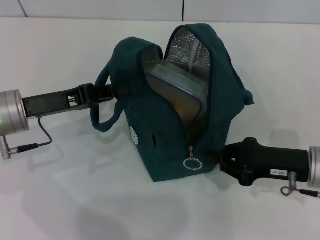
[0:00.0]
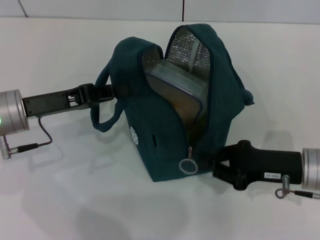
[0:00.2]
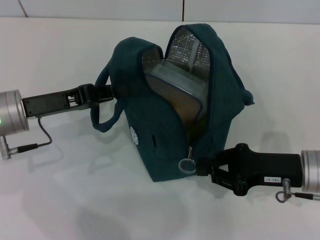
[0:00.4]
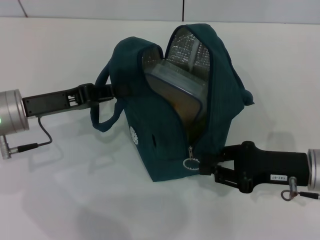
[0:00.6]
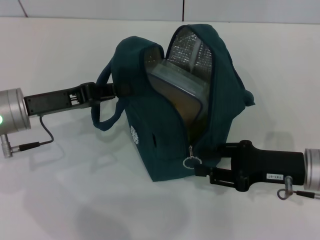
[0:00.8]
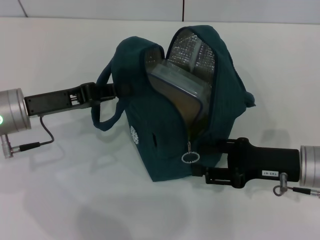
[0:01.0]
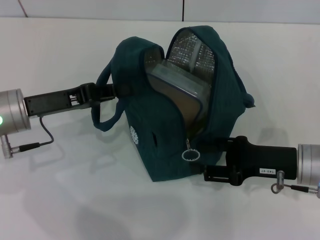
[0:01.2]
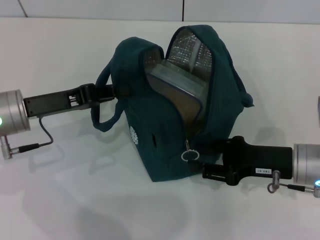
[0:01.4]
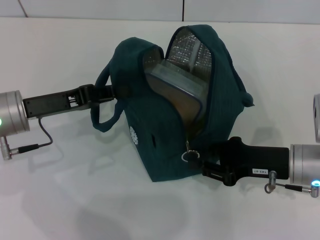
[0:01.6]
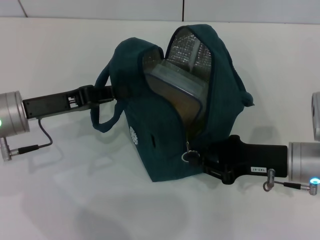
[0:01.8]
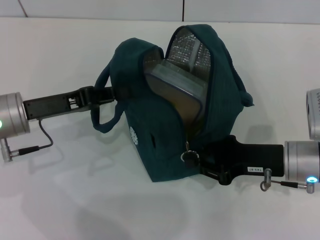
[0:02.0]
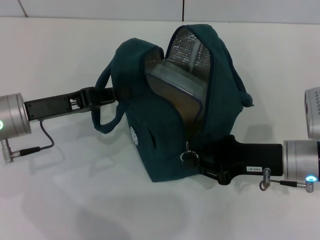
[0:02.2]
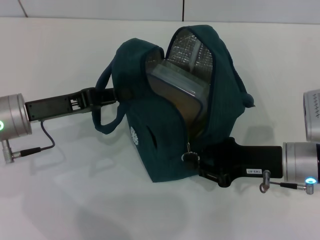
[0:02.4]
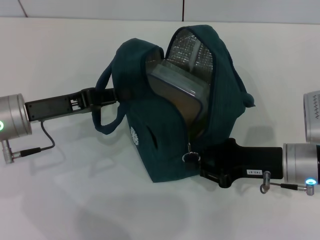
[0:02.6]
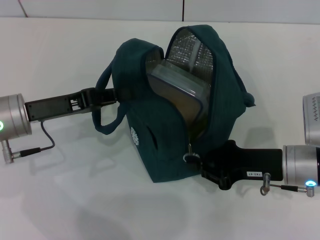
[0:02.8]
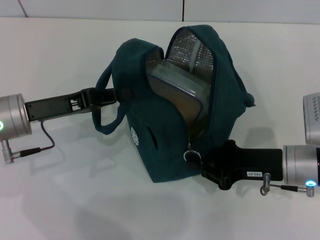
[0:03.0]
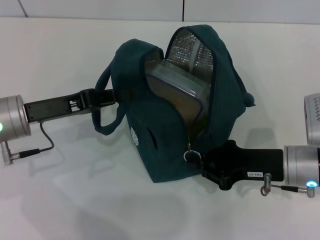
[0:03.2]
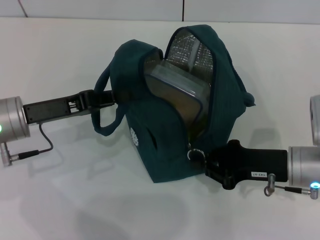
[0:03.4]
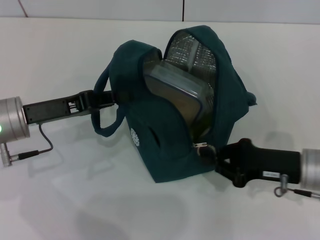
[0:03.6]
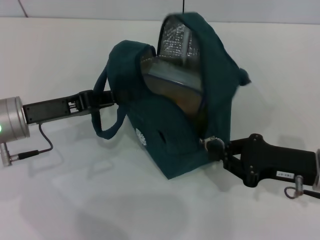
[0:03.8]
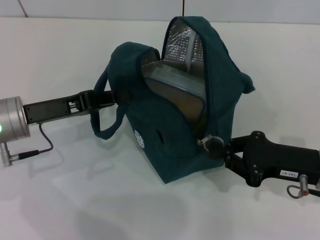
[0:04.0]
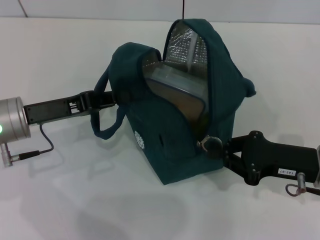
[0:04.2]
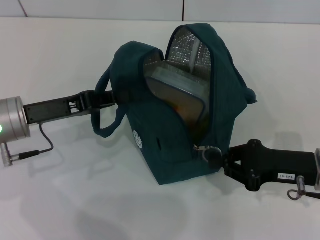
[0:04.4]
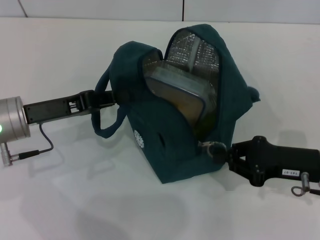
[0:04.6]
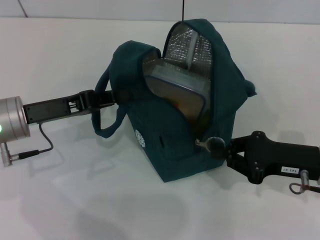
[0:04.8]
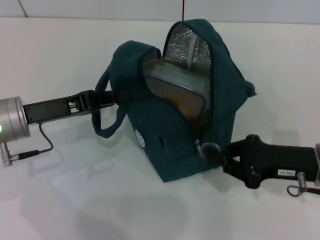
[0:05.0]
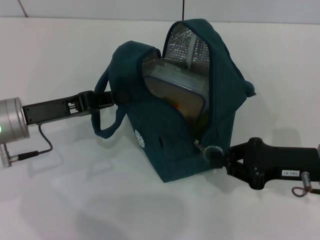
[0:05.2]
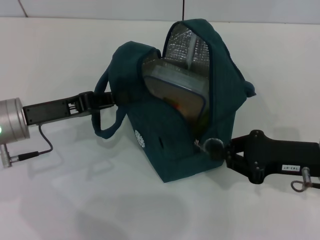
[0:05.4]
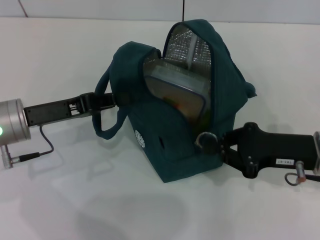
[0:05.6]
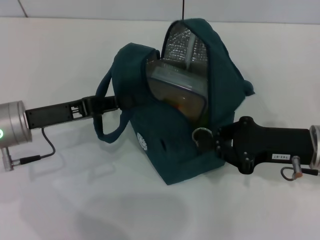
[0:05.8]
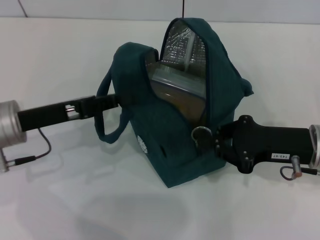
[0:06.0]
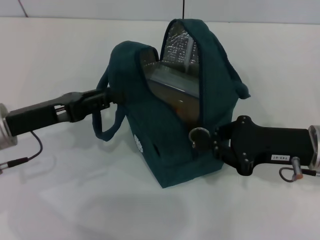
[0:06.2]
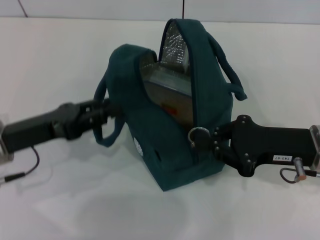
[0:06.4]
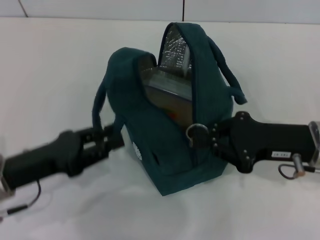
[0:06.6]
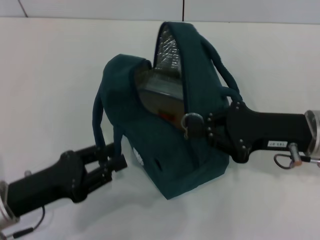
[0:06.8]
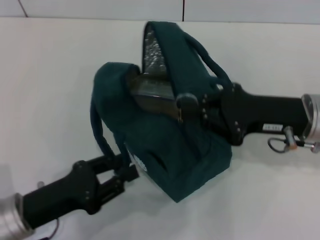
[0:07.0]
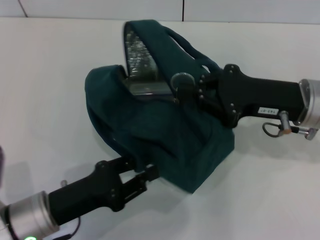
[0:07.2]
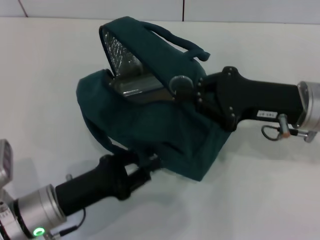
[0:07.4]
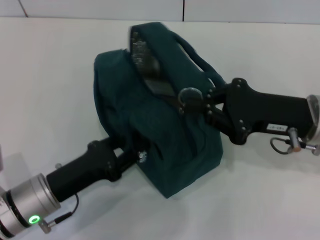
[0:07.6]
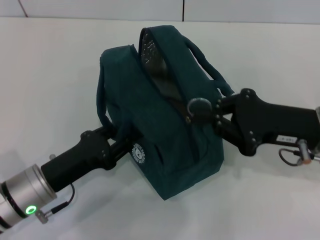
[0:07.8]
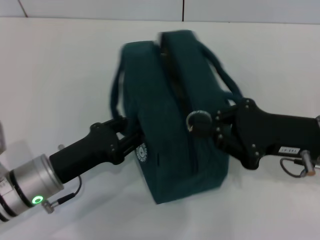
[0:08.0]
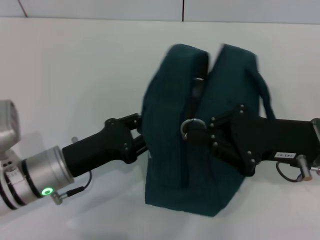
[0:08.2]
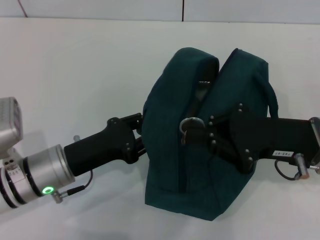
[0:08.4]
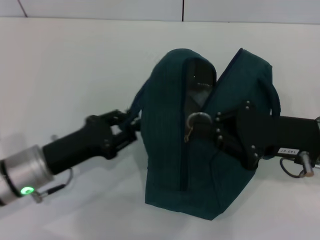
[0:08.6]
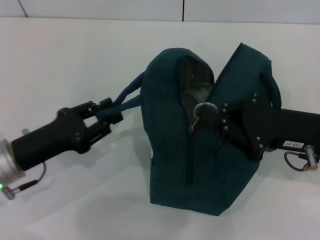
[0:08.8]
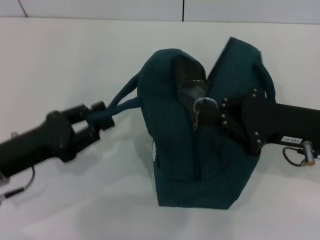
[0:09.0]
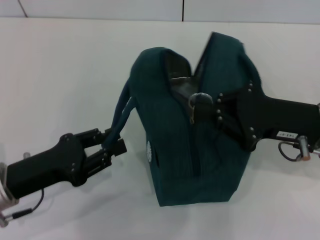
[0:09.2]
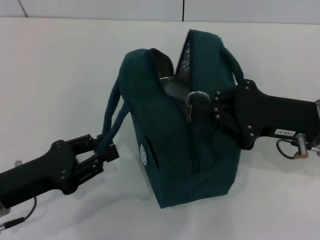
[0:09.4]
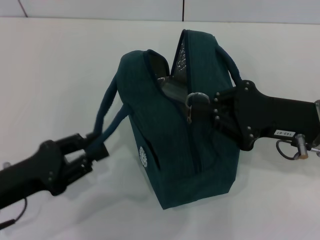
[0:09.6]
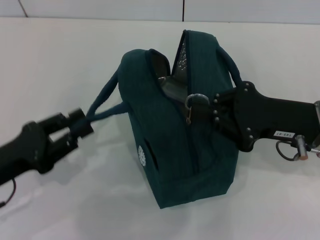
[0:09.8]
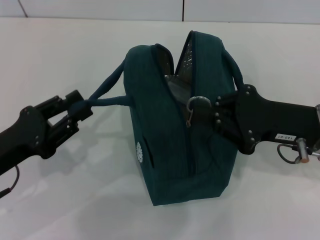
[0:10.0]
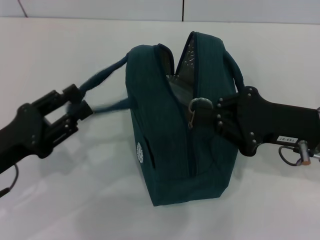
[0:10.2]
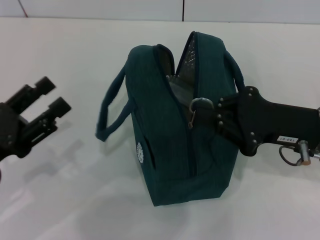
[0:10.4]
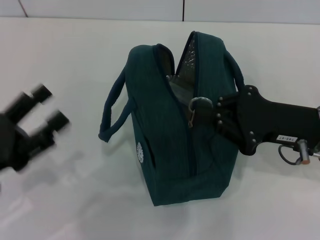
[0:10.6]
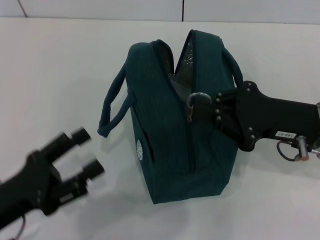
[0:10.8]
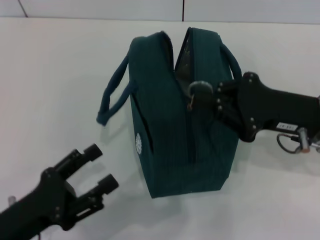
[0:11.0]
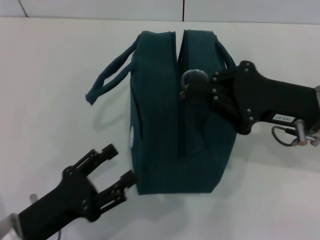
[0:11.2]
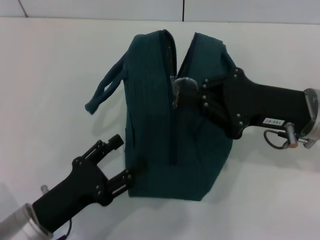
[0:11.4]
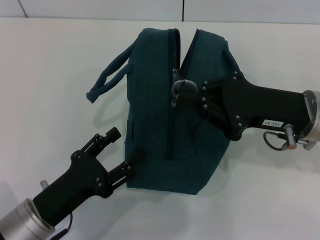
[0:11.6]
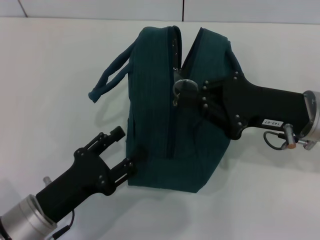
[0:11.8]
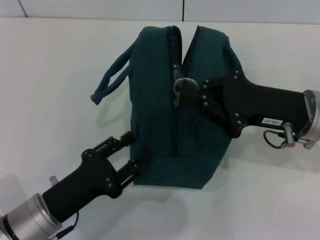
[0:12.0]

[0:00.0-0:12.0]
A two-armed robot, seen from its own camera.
0:00.0 to 0:01.6: The right gripper opens up.
0:01.6 to 0:03.0: The right gripper closes its fingers.
0:03.0 to 0:06.0: The grippers stay close to where they were, moving slightly.
0:06.0 to 0:07.6: The left gripper moves downward and backward, approximately 10 cm.
0:07.6 to 0:09.0: The left gripper travels to the left and upward by approximately 10 cm.
0:10.4 to 0:12.0: The left gripper shifts roughly 10 cm to the right and downward.

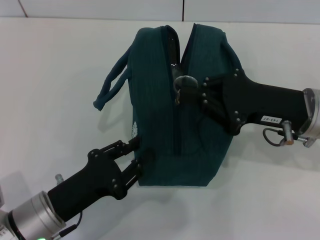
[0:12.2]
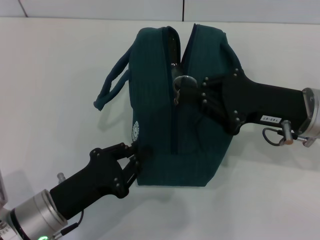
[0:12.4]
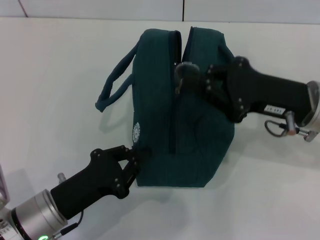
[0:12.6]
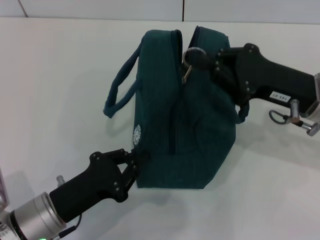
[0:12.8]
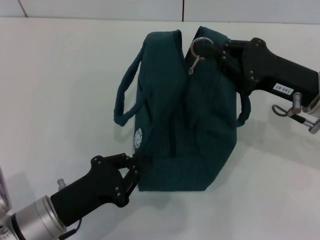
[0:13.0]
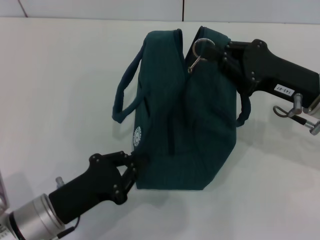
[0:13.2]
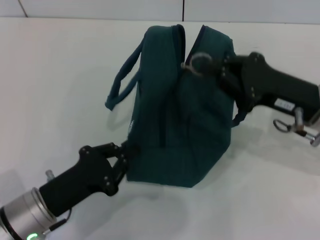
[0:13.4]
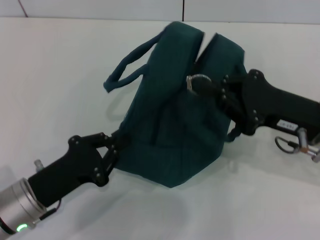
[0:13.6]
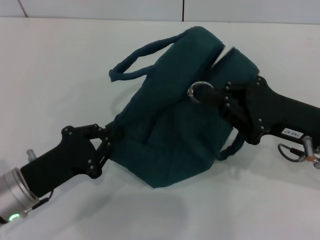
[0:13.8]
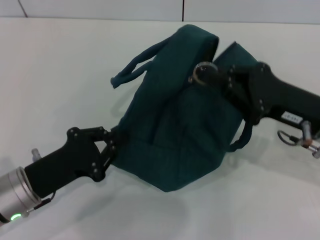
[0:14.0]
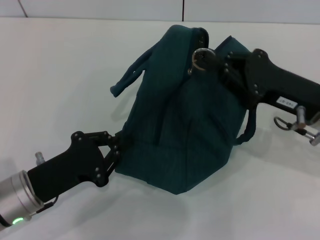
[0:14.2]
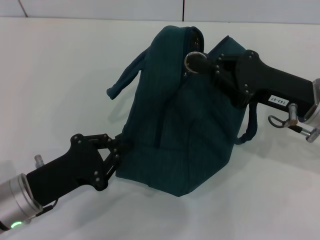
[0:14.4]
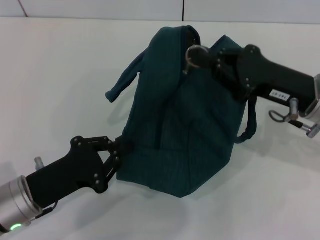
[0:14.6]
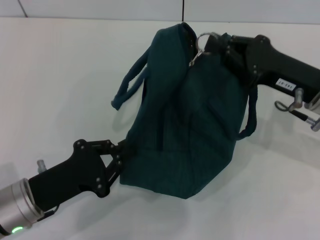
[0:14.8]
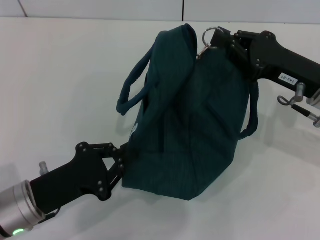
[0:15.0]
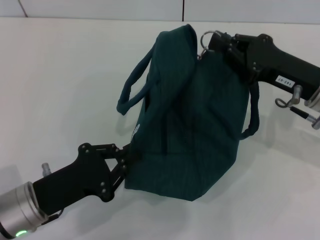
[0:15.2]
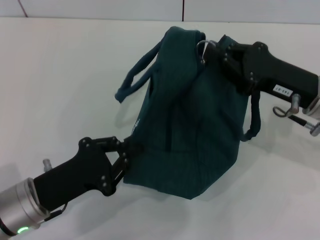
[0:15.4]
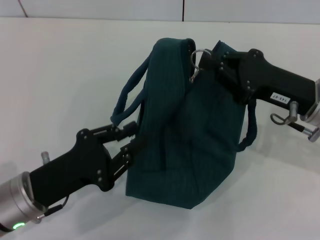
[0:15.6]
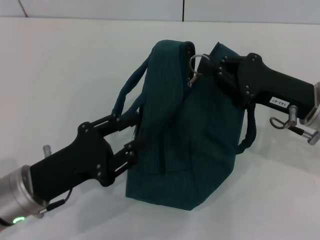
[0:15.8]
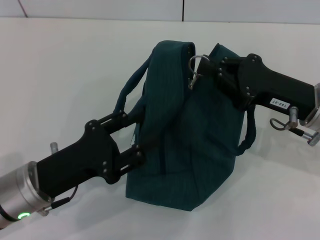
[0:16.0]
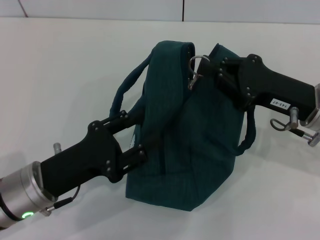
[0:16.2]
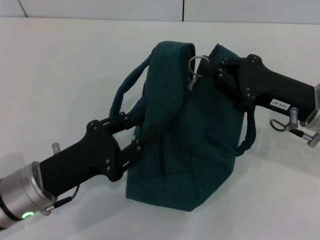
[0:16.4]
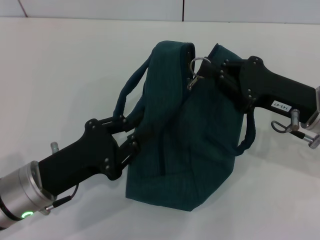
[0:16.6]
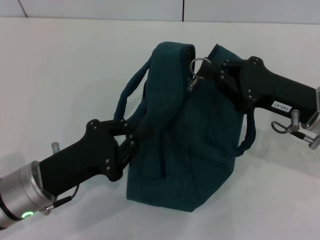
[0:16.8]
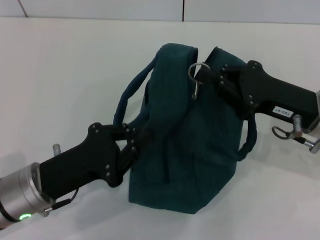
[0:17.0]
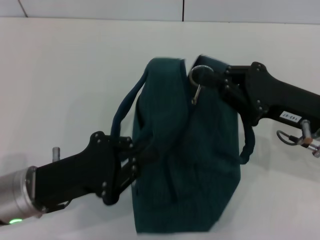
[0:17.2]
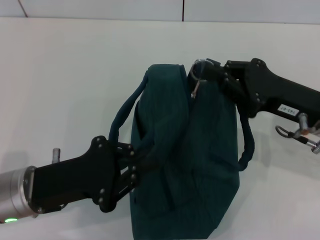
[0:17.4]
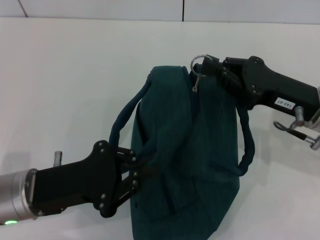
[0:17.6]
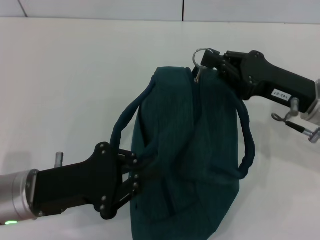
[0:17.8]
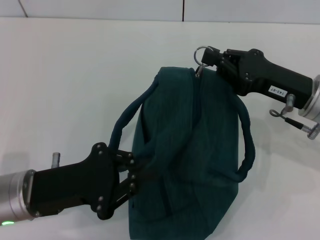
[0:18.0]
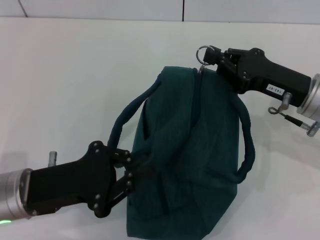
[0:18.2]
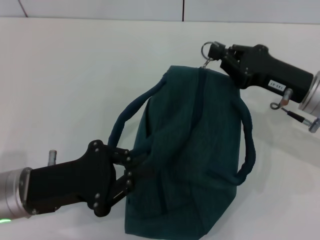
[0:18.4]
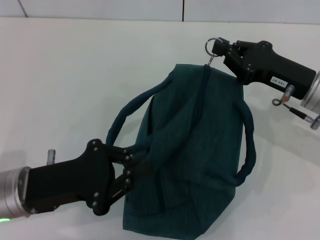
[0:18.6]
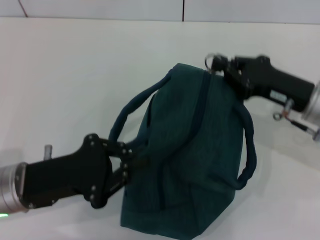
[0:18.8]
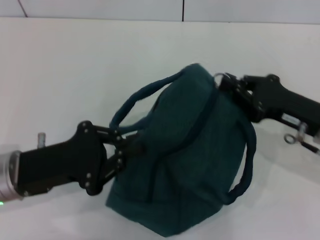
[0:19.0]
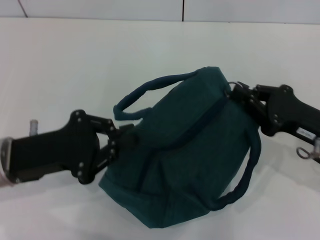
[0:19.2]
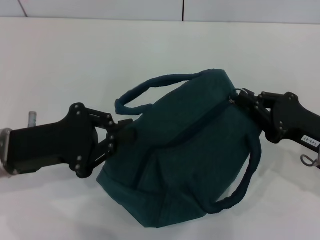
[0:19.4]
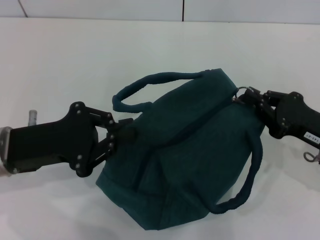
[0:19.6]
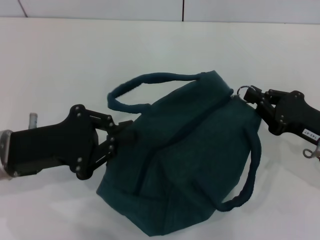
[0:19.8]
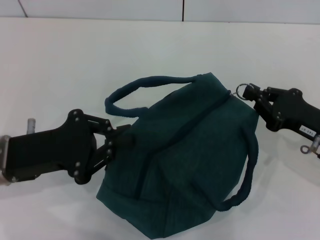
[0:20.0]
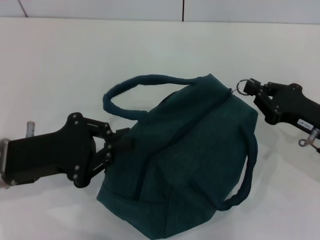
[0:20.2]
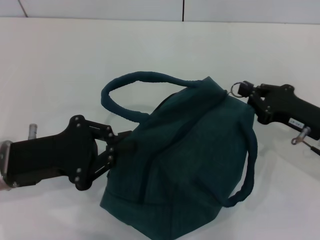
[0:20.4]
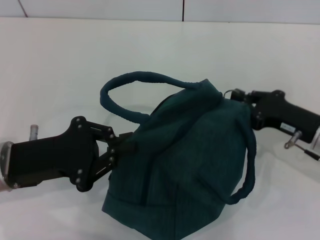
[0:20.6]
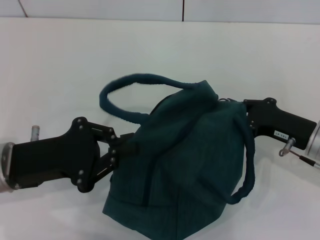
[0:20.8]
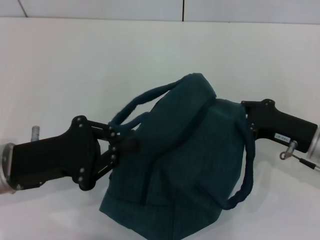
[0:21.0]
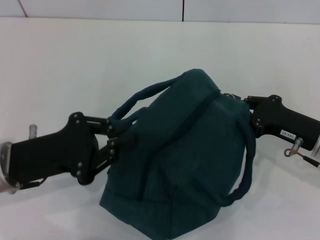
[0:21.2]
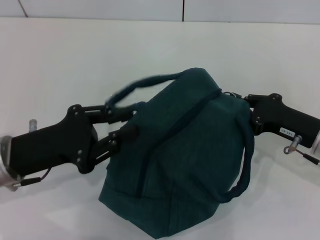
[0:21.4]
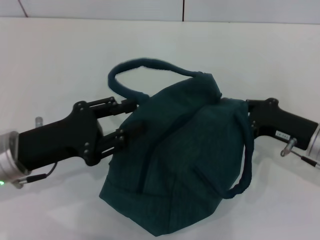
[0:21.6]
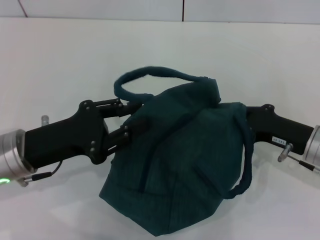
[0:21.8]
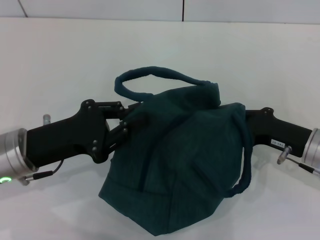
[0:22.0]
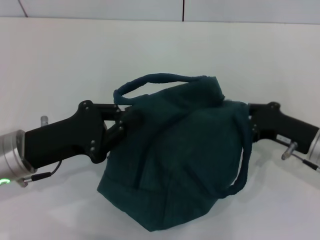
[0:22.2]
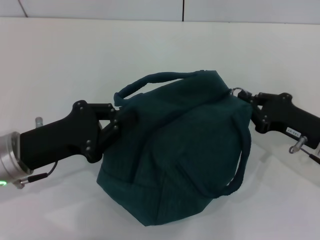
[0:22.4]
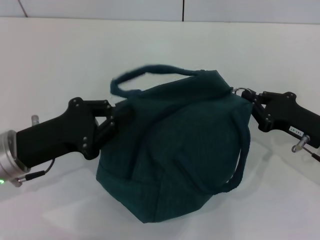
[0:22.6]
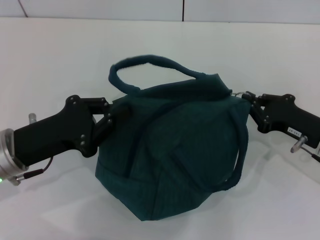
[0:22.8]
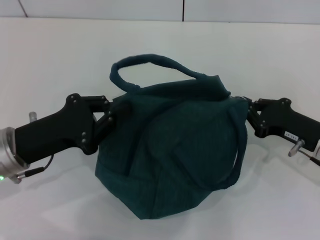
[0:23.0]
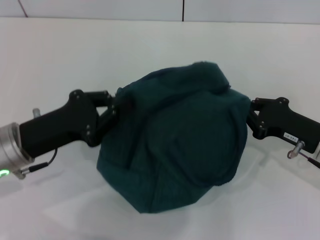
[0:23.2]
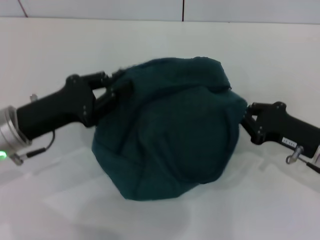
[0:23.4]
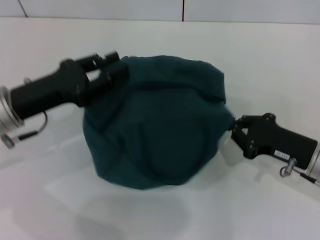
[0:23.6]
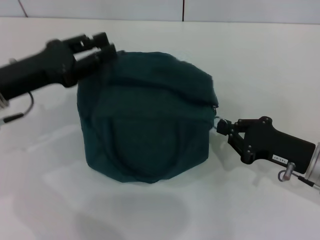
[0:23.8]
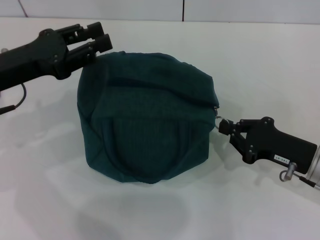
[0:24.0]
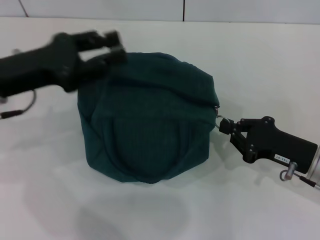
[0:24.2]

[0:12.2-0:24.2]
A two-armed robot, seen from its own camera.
Step, 0:12.2 to 0:23.8: Hold the lunch bag with your left hand.
0:12.2 to 0:13.8: The left gripper closes its fingers.
0:13.8 to 0:15.2: The right gripper shifts by about 5 cm.
0:15.2 to 0:16.6: The left gripper opens.
0:16.6 to 0:18.2: The left gripper closes up.
0:18.2 to 0:19.8: The left gripper shifts by roughly 5 cm. The right gripper is displaced to the right by roughly 5 cm.
0:19.8 to 0:21.2: There are only small adjustments of the grippers.
0:21.2 to 0:22.6: The left gripper opens and closes again.
0:22.6 to 0:24.2: The left gripper travels upward and forward by some 10 cm, and opens.
